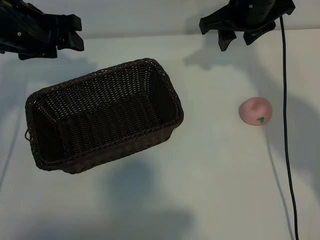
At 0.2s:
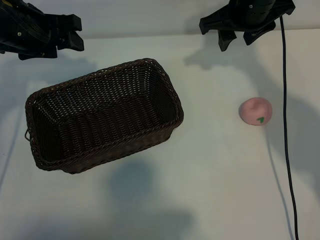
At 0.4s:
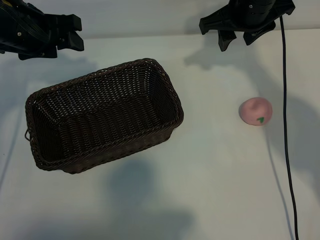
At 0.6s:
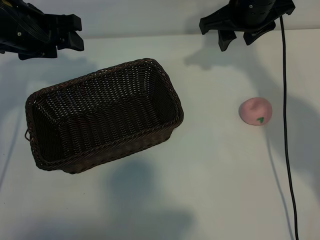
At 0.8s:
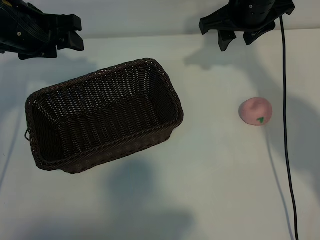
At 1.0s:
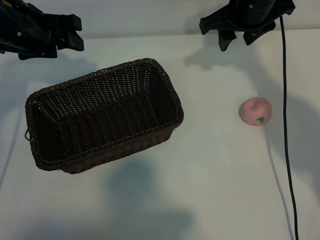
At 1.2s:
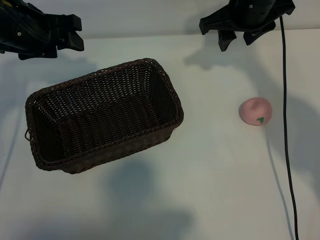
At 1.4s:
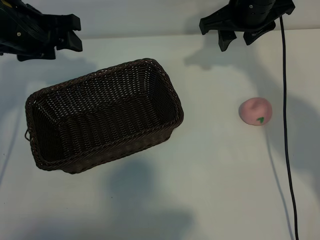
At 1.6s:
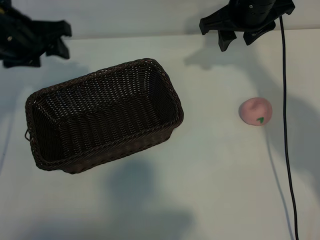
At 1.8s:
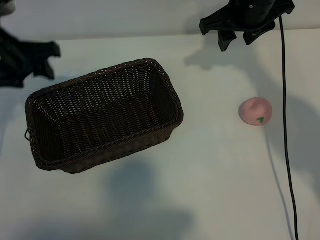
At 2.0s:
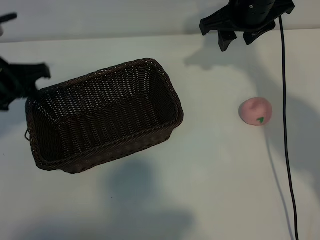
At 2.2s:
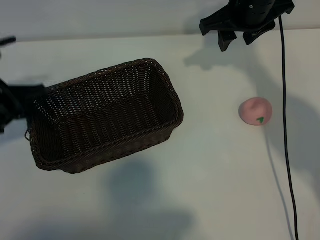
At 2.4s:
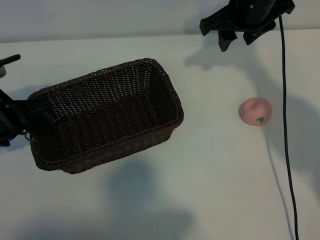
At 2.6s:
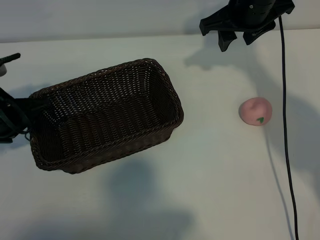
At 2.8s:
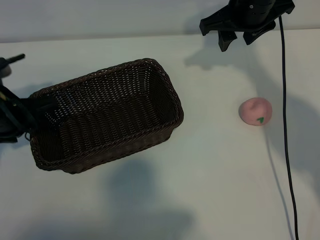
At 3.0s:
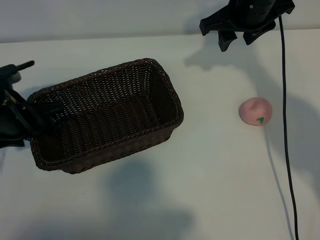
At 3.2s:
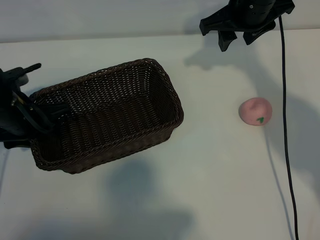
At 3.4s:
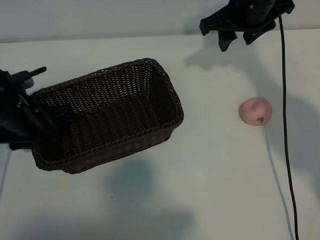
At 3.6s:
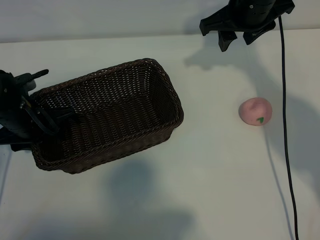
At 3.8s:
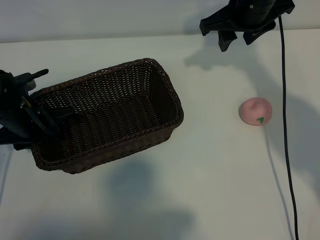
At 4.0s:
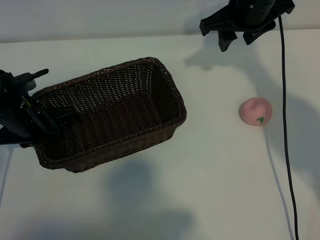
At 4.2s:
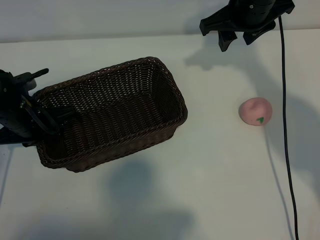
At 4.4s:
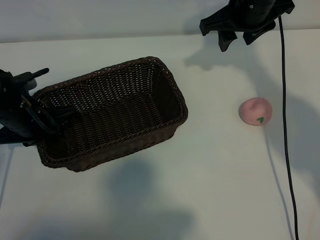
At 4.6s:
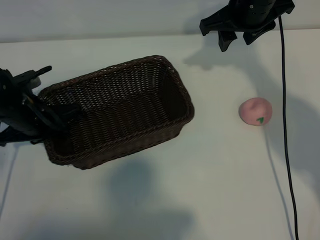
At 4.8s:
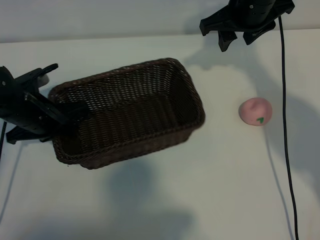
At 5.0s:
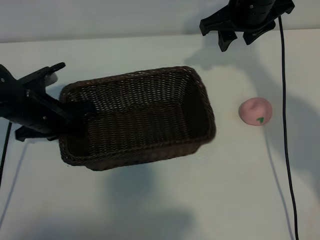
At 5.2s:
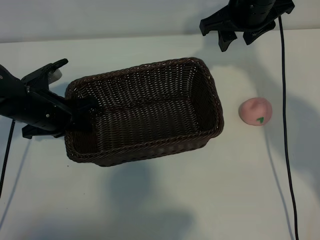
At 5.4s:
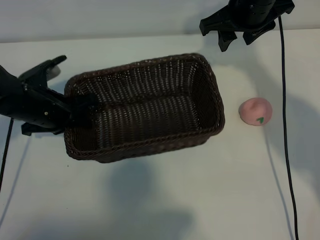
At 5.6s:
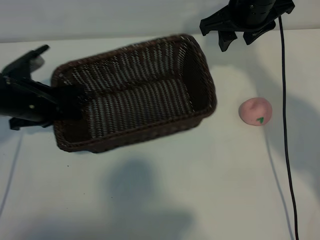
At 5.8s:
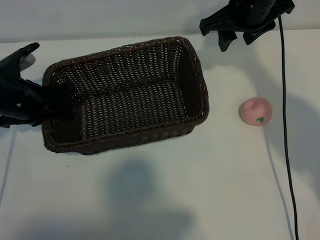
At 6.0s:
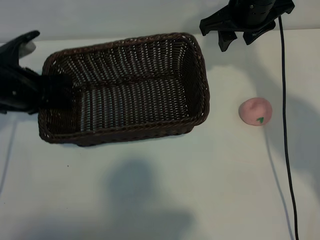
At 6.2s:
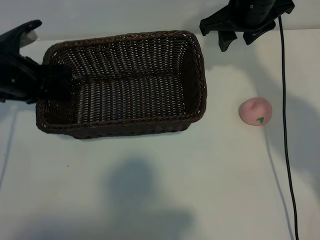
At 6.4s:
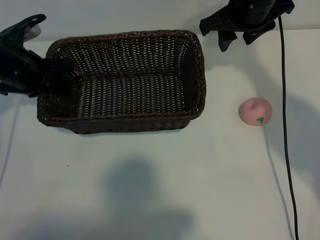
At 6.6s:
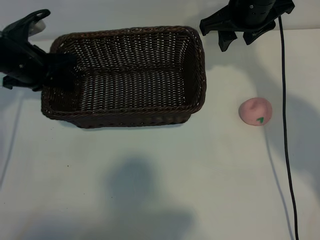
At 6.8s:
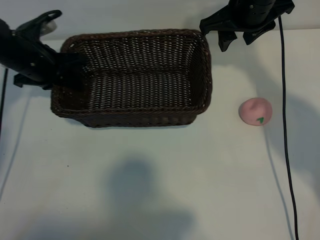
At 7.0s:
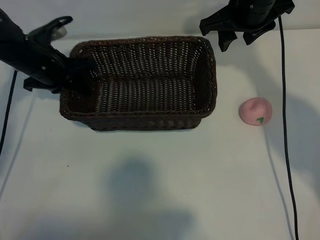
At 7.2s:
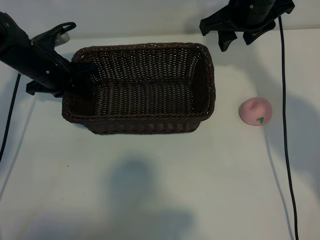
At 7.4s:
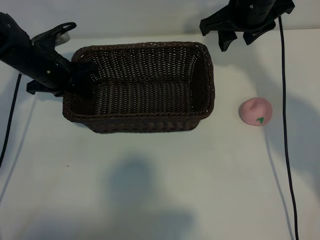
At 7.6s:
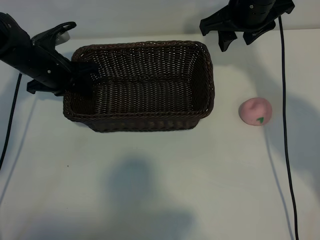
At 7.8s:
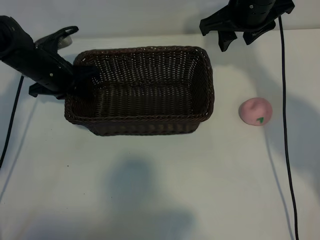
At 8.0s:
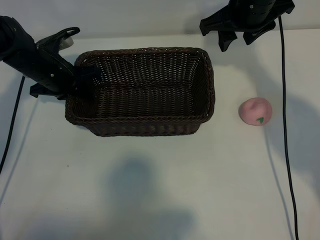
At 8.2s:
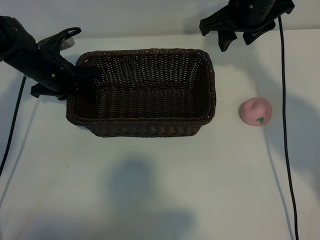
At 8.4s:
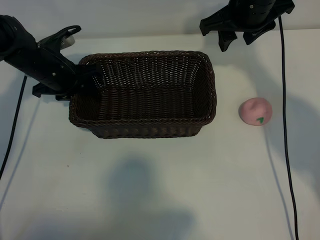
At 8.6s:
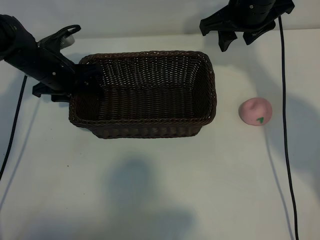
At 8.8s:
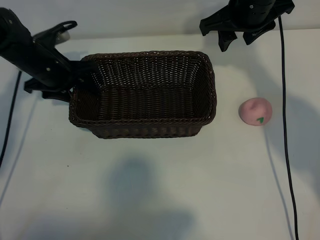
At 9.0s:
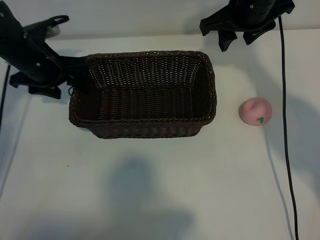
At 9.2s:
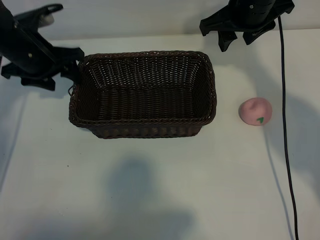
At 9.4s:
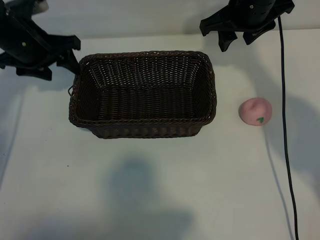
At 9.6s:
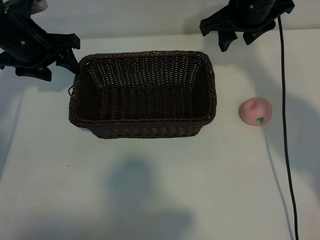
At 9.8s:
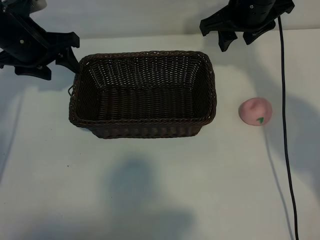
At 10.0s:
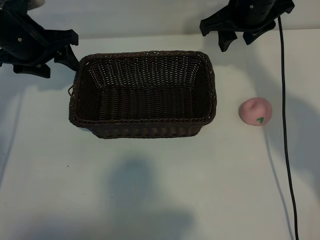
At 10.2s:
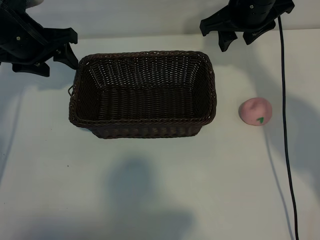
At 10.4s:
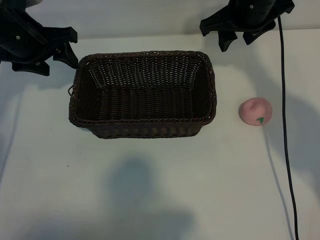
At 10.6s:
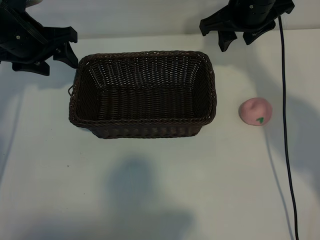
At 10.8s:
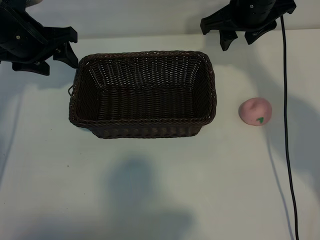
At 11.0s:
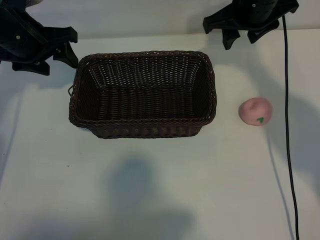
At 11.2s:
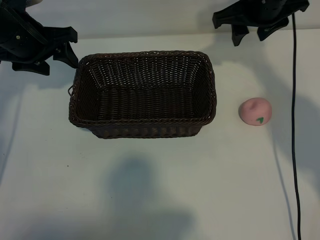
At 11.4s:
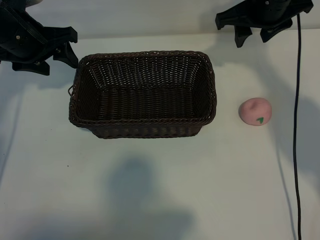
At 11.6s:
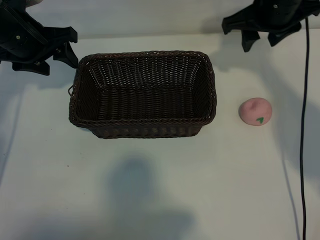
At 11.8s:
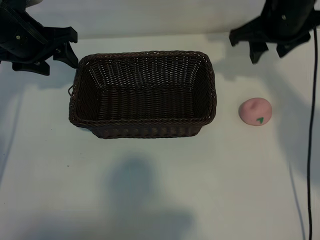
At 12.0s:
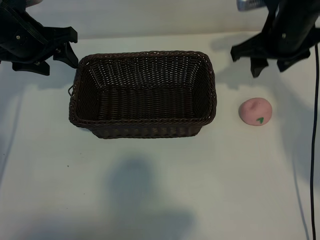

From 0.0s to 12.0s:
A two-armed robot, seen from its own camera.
Task of the whole recording: pick up the peach and put it into the basket.
Step, from 1.4s to 4.2s: Grasp the basket with left gripper.
Step, from 4.6s to 8.8s: Place the basket in the center of view with left gripper.

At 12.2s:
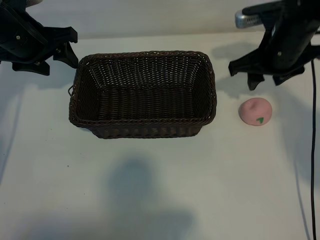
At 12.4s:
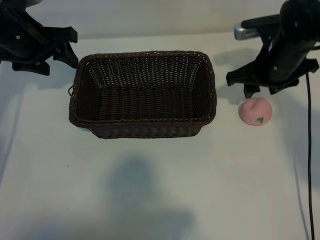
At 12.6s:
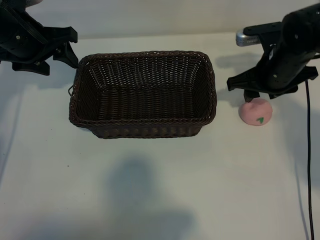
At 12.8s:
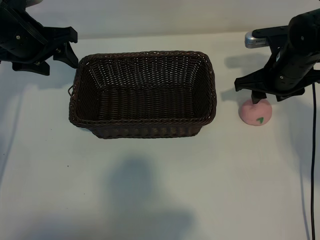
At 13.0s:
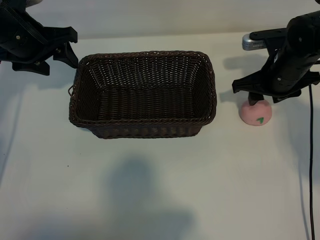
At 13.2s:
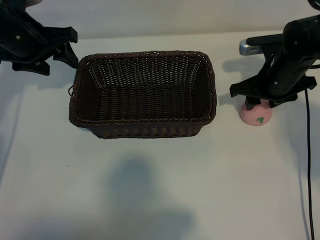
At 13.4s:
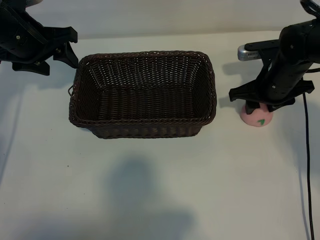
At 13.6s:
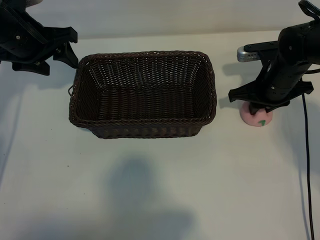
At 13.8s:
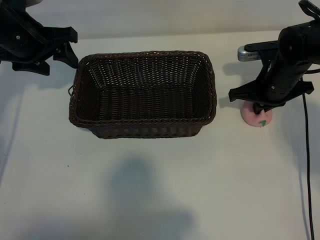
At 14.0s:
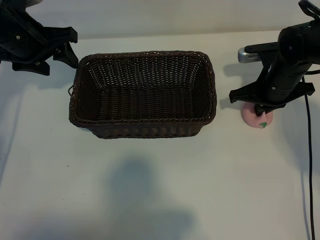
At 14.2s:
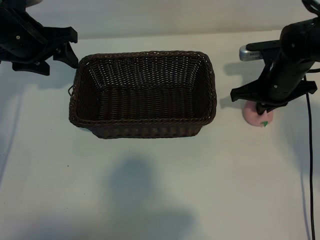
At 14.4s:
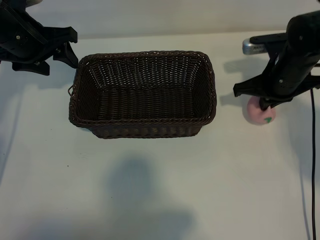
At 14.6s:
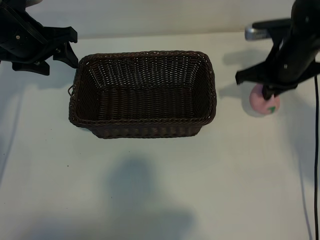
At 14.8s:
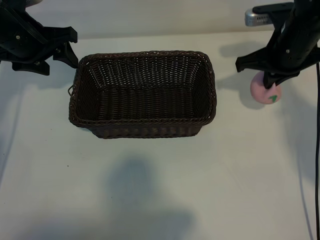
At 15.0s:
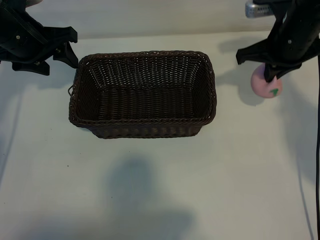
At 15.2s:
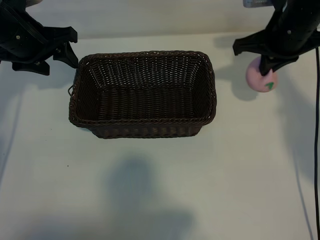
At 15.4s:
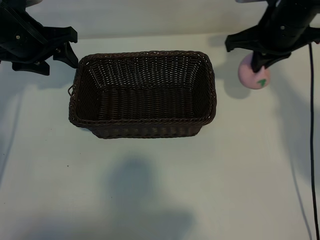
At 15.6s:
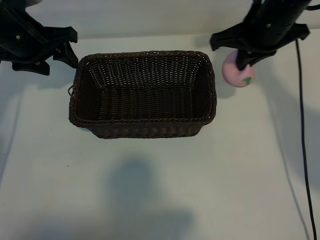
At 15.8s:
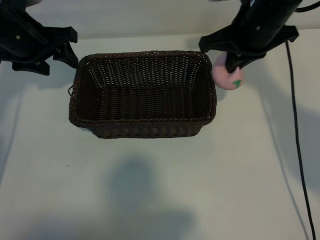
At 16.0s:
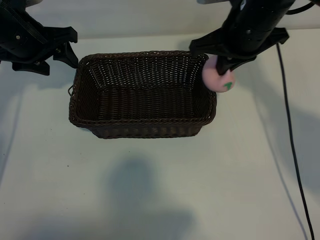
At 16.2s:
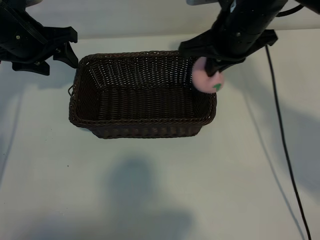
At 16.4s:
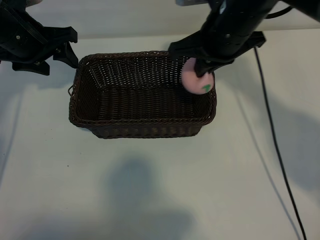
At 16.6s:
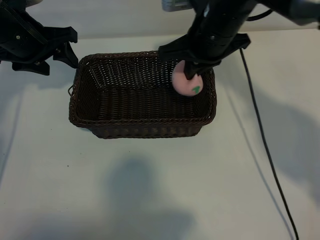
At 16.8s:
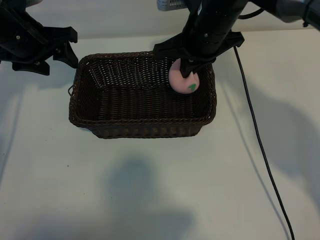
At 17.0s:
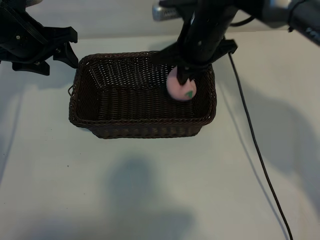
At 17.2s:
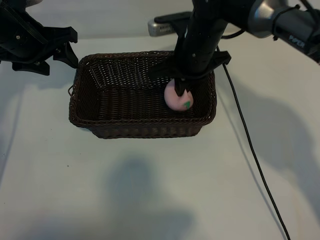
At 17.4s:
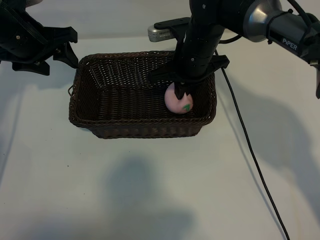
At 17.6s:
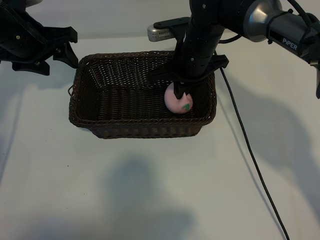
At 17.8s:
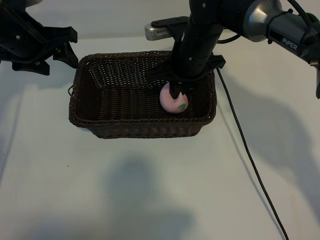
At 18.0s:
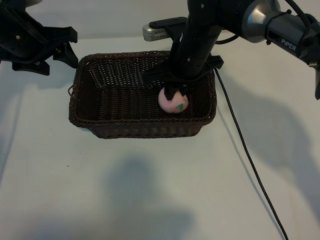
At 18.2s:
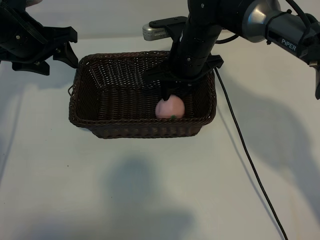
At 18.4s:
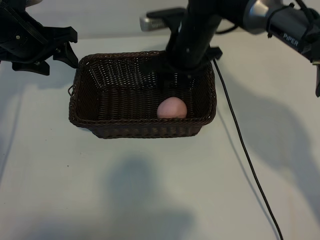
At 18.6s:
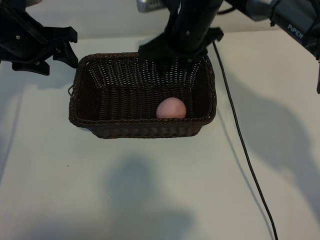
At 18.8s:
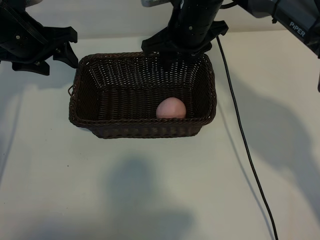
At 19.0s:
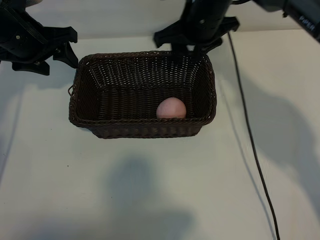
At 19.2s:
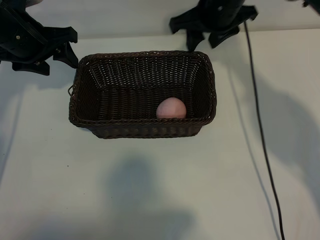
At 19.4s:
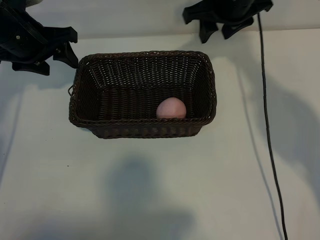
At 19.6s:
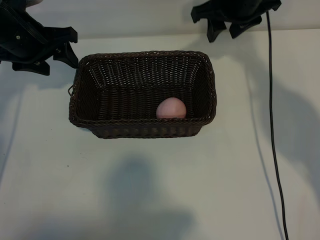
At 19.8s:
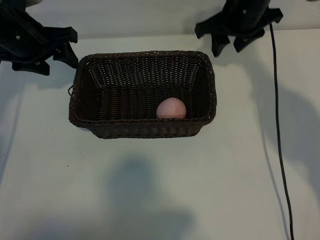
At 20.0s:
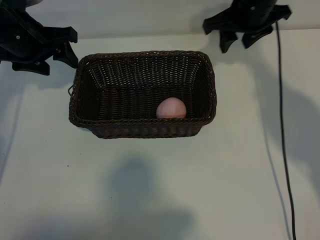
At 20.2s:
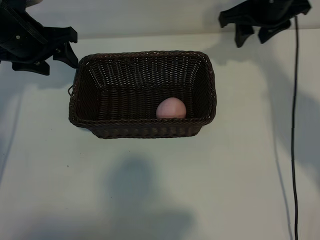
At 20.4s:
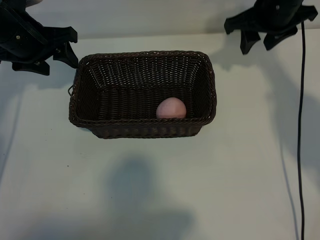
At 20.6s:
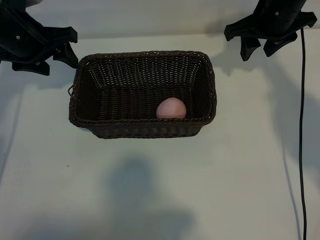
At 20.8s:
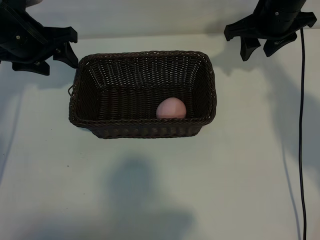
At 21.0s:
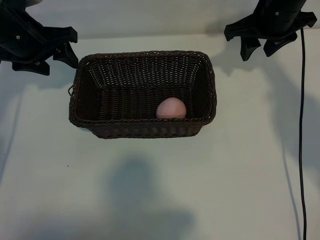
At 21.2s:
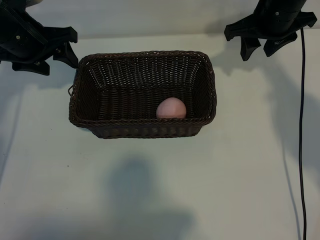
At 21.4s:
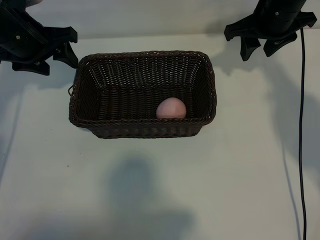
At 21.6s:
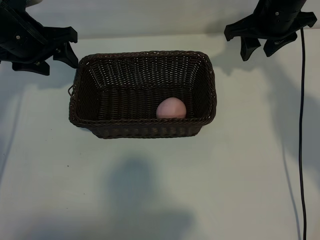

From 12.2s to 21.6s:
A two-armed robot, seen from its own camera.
Task of the whole recording: pick up the peach and put it into the basket.
Step, from 14.0s to 18.2s: Place the peach in the basket with right gripper.

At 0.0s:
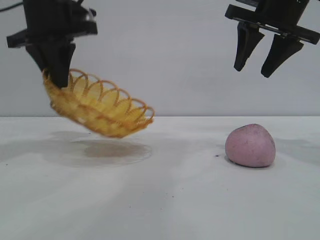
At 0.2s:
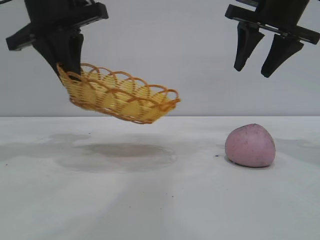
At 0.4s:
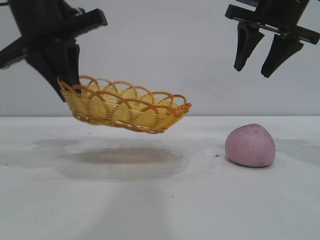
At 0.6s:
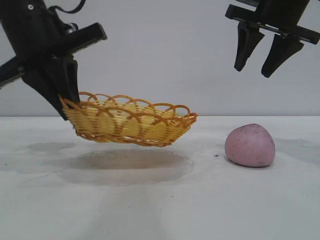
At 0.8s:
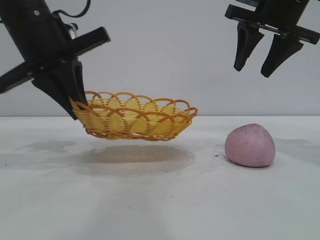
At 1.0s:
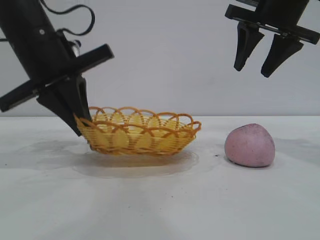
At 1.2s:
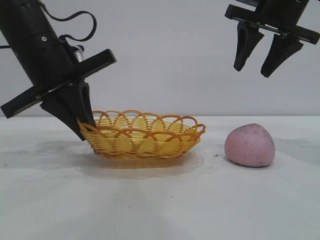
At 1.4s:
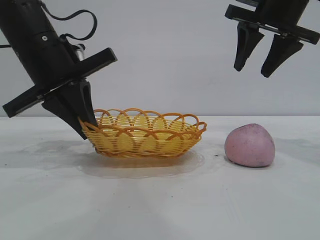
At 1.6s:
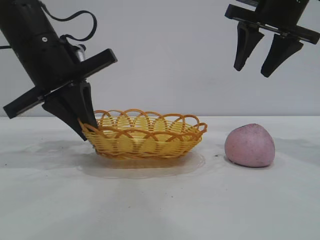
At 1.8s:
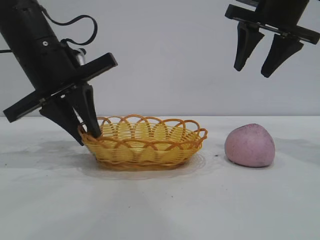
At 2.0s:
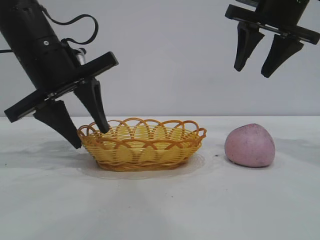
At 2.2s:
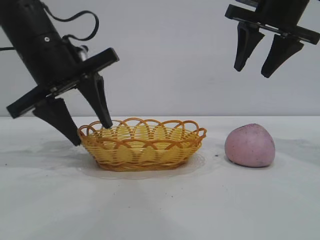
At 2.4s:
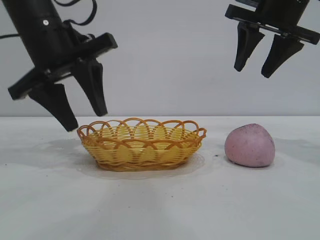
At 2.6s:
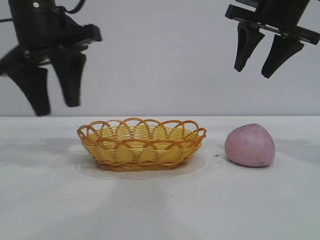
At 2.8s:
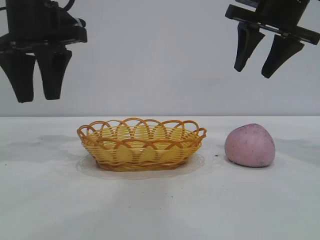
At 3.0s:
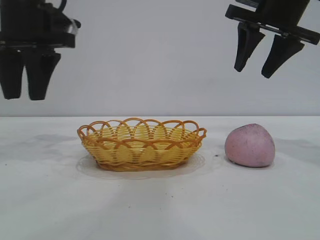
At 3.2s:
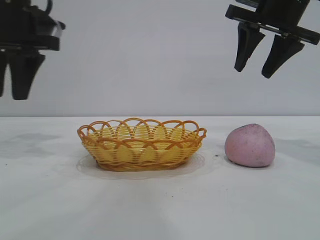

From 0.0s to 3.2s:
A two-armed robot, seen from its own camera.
Task of the whole recording: pick up the peach and put it into the basket.
Step, from 0.0s to 2.4s: Move the basket to the center of view.
